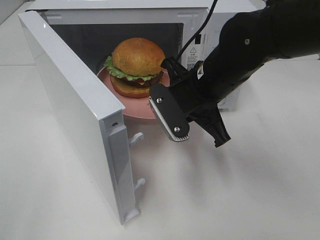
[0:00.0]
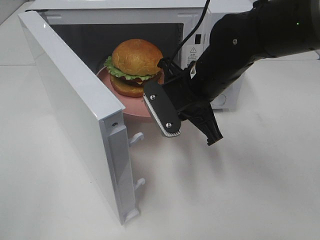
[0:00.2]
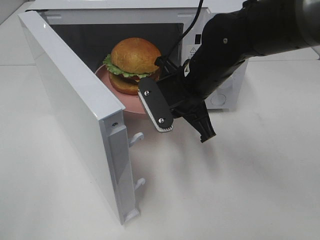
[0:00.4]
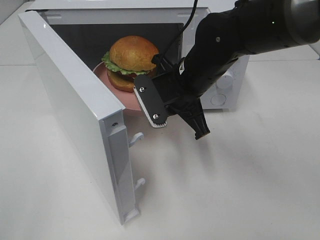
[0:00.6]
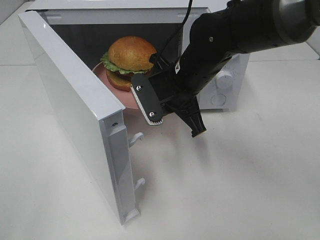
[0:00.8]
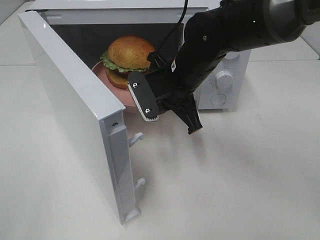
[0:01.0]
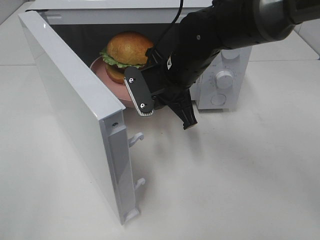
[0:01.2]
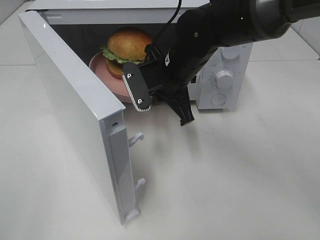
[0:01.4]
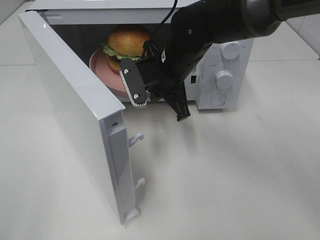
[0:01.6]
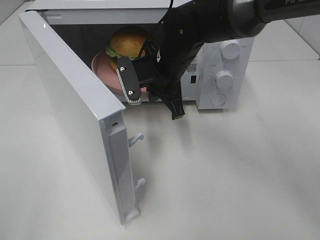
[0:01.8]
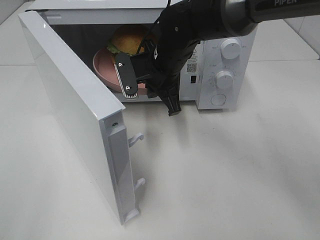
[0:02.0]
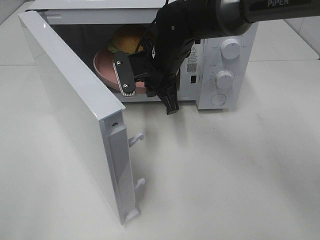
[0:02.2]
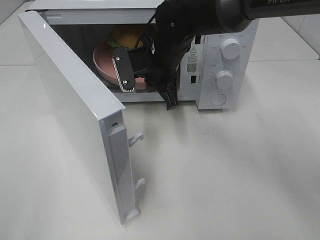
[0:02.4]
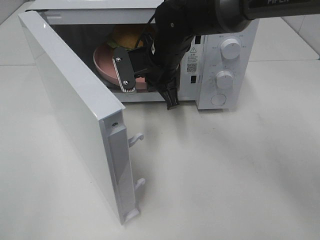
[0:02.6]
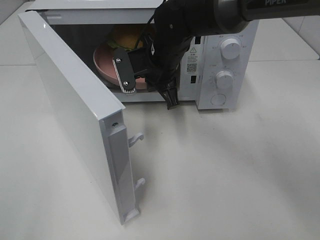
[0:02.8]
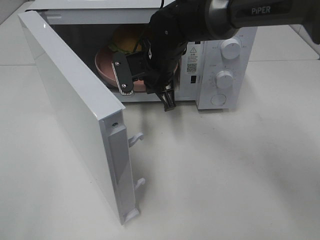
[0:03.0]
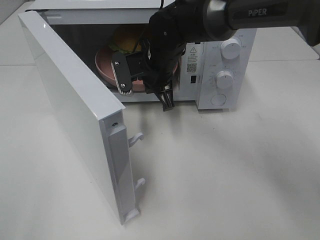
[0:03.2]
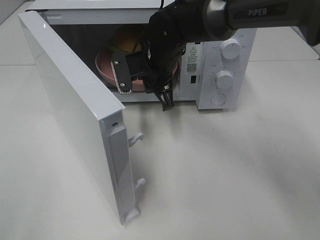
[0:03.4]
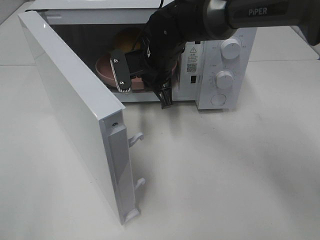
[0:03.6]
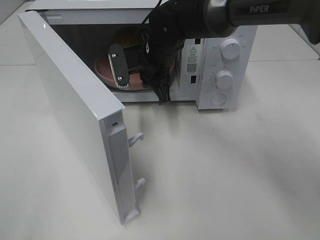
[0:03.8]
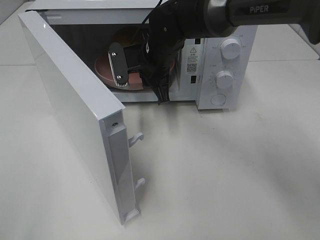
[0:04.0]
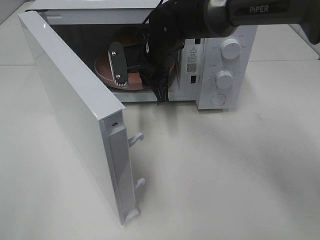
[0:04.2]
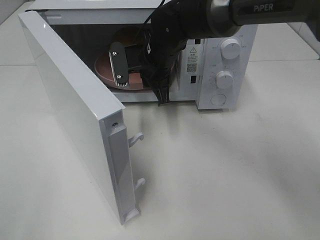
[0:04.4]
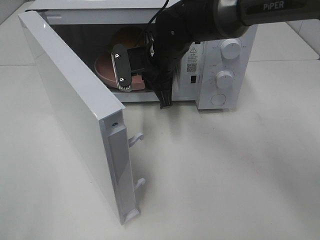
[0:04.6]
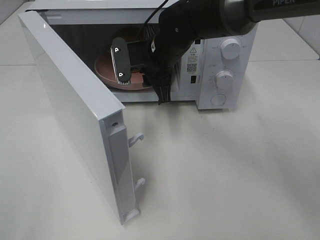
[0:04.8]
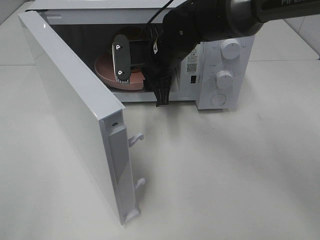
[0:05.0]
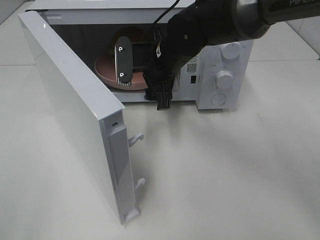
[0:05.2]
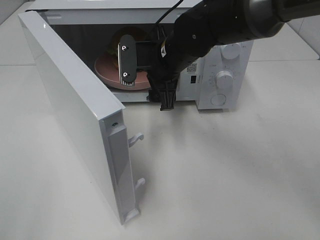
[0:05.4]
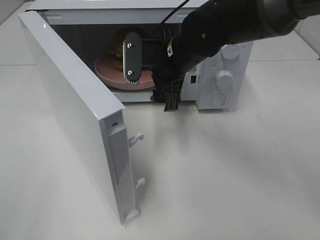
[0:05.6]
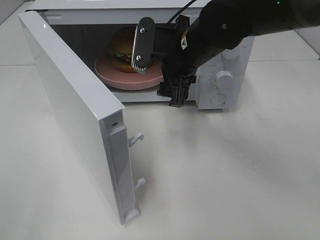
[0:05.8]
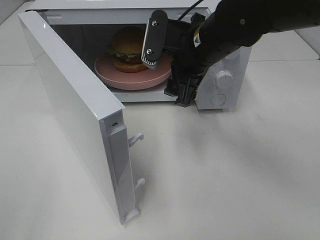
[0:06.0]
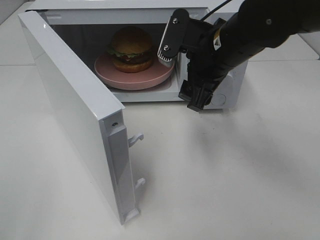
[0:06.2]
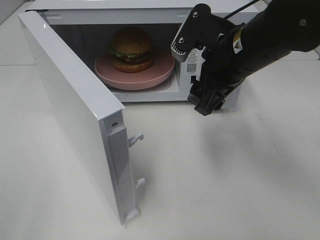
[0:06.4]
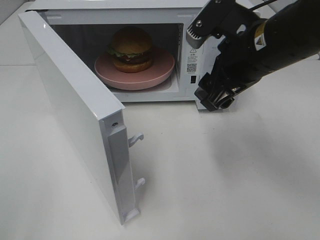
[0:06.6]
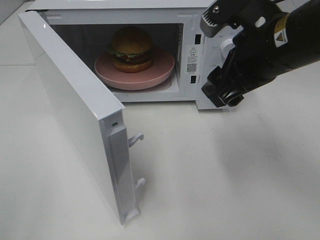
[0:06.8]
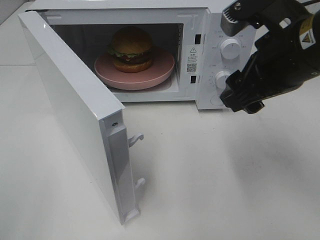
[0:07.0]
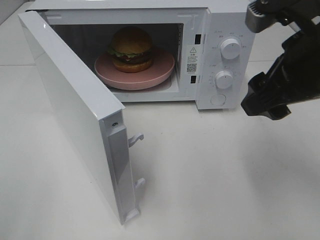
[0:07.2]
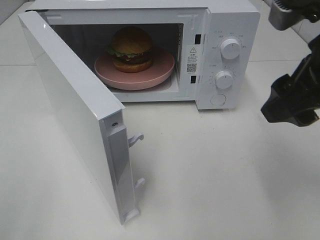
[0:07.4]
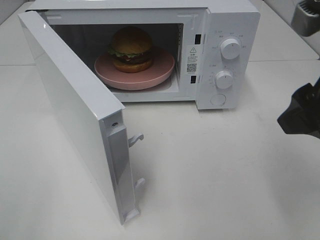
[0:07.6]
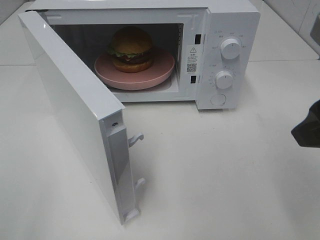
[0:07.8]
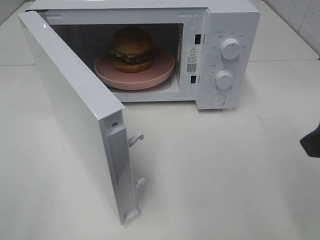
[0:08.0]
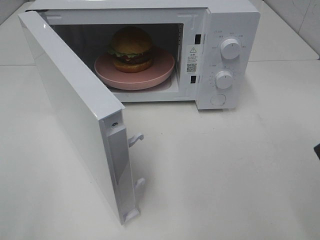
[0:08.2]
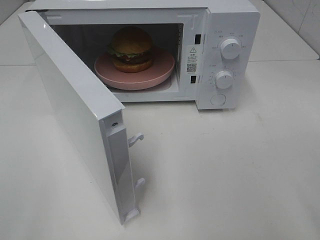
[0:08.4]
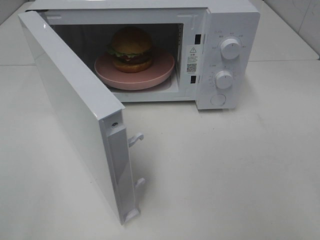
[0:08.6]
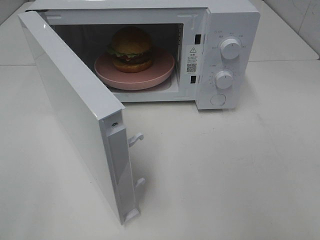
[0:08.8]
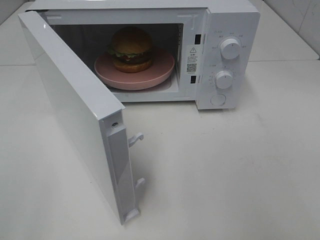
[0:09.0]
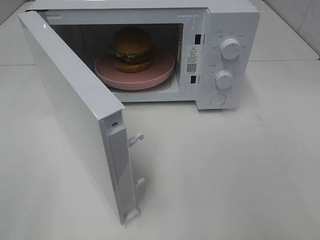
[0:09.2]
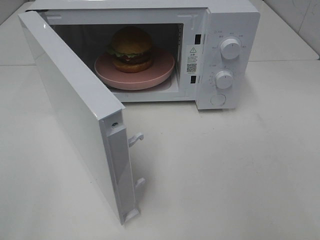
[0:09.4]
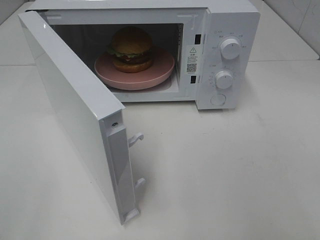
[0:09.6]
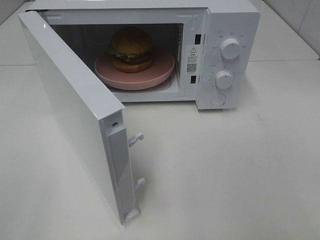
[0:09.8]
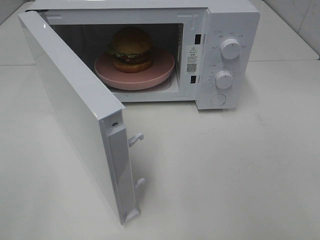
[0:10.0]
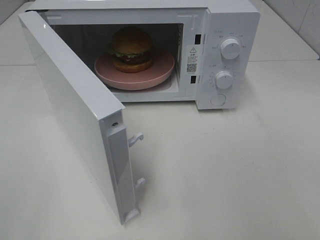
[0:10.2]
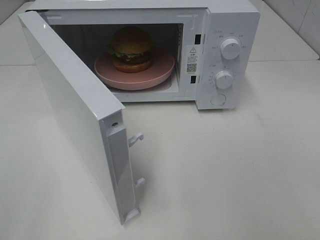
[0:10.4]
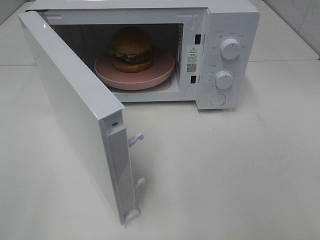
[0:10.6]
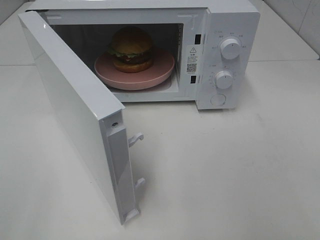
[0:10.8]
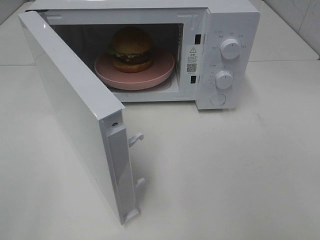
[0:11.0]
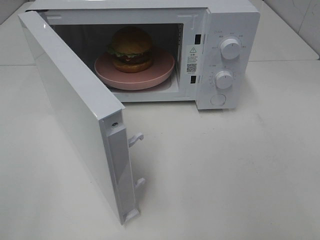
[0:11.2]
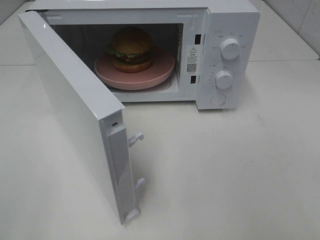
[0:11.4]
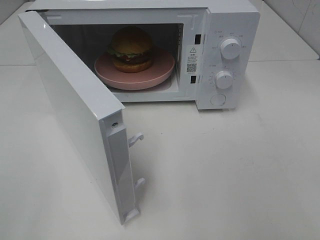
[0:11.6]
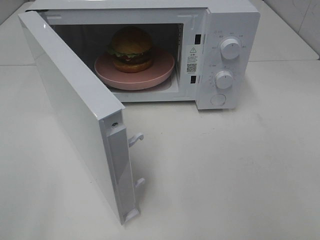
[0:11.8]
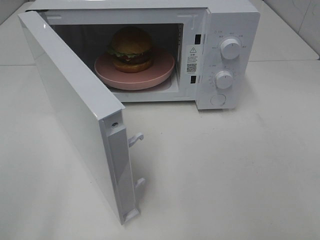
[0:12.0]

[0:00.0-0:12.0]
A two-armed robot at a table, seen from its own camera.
Task of the whole recording: Heat the burger.
Step, 0:00.0 to 0:03.8: Right hand: place the plate in the microwave.
0:00.0 to 0:01.6: The right gripper heads forward, covering approximately 5 cm.
0:01.6 to 0:04.4: The grippers make only small movements.
0:04.4 to 0:06.0: The right gripper moves backward, to the right and upward, about 10 cm, and opens up.
0:06.0 to 0:07.6: The right gripper travels backward, to the right and upward by some 20 cm.
0:07.6 to 0:09.0: The right gripper moves backward and to the right, about 15 cm.

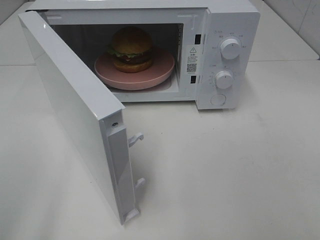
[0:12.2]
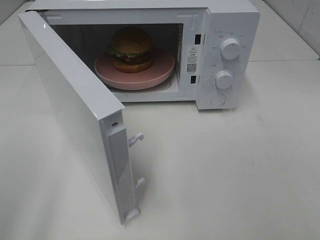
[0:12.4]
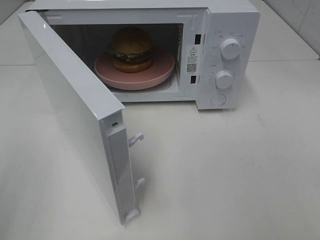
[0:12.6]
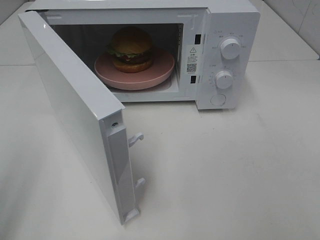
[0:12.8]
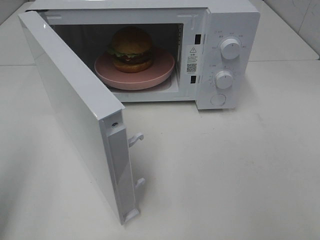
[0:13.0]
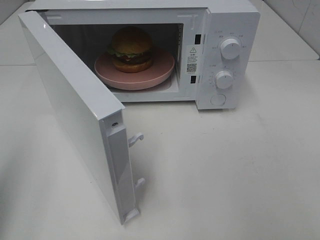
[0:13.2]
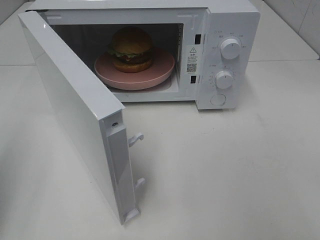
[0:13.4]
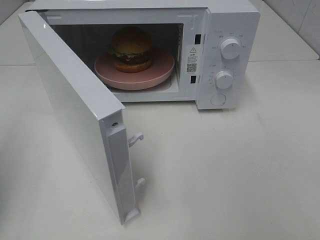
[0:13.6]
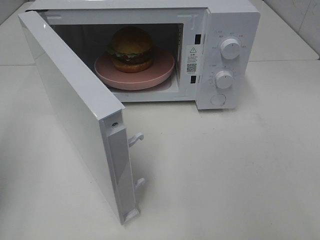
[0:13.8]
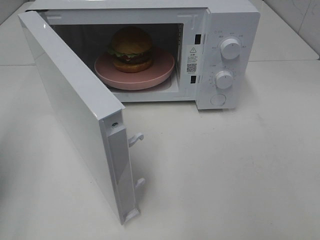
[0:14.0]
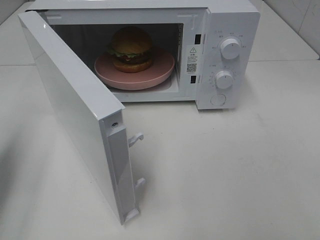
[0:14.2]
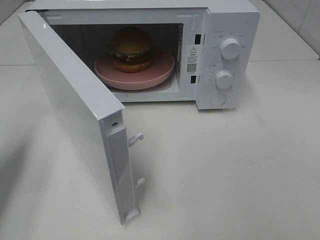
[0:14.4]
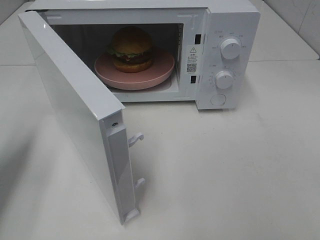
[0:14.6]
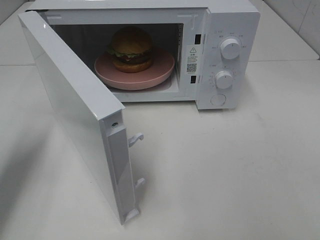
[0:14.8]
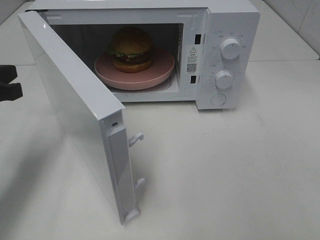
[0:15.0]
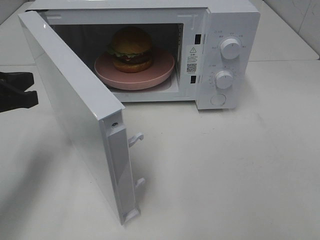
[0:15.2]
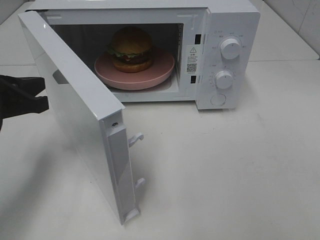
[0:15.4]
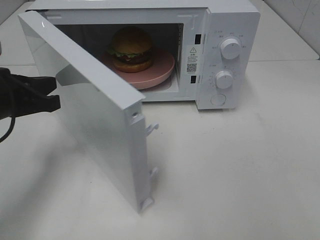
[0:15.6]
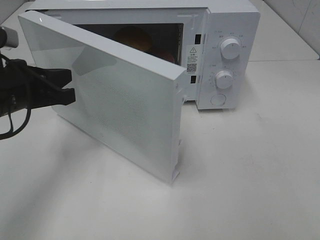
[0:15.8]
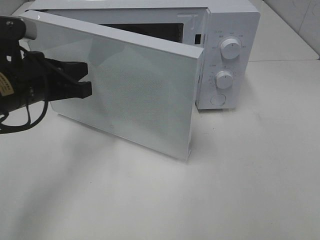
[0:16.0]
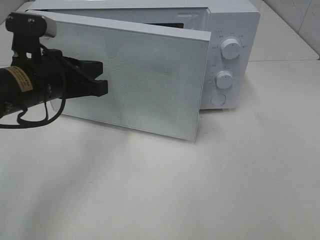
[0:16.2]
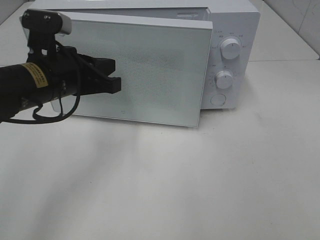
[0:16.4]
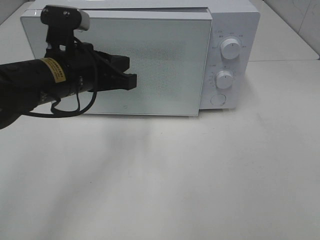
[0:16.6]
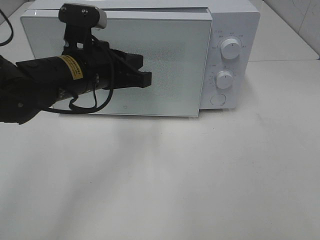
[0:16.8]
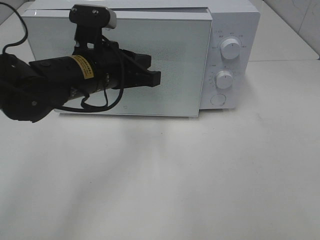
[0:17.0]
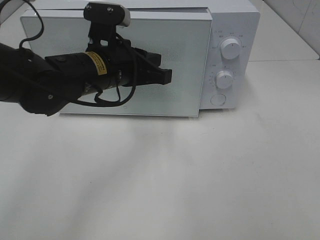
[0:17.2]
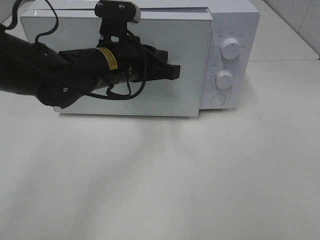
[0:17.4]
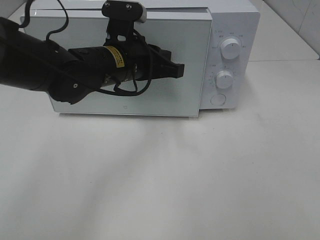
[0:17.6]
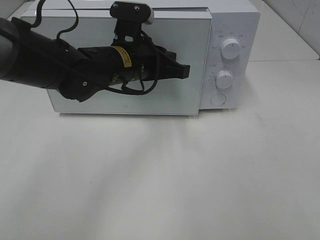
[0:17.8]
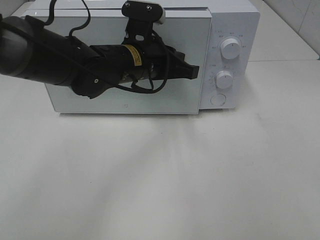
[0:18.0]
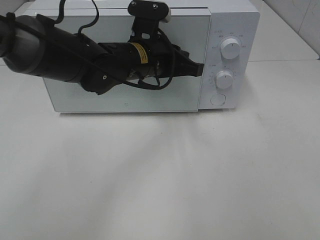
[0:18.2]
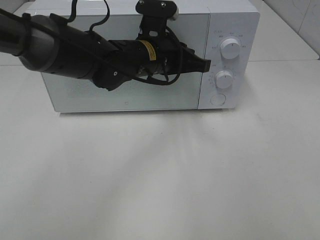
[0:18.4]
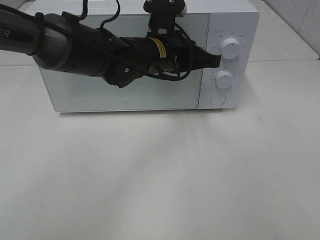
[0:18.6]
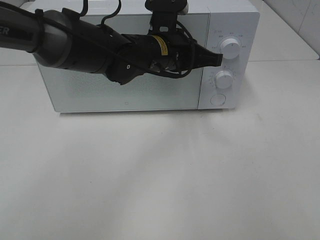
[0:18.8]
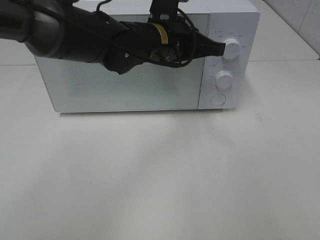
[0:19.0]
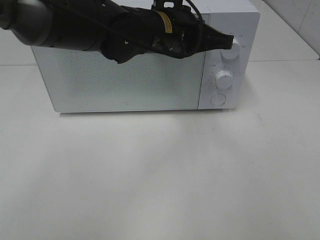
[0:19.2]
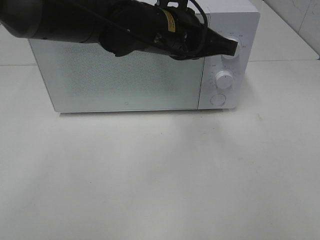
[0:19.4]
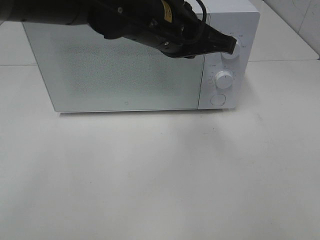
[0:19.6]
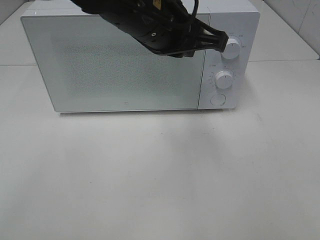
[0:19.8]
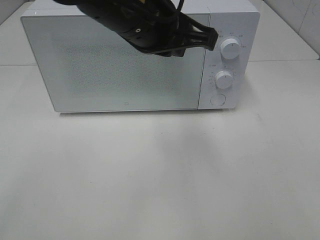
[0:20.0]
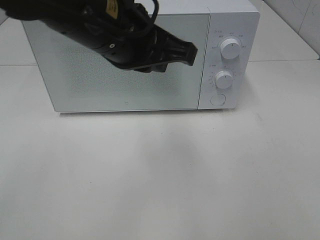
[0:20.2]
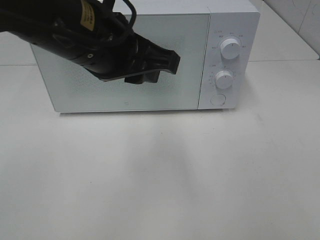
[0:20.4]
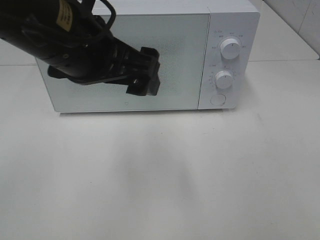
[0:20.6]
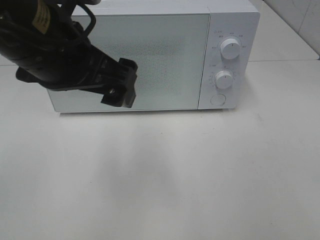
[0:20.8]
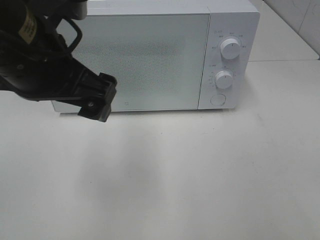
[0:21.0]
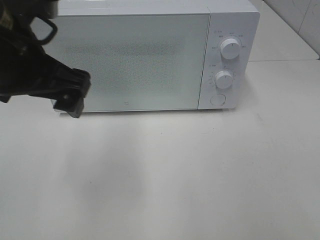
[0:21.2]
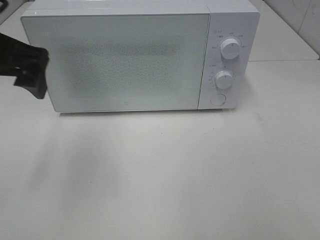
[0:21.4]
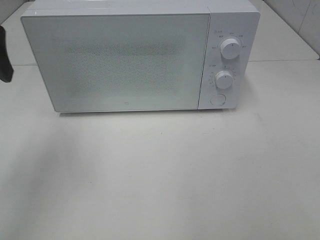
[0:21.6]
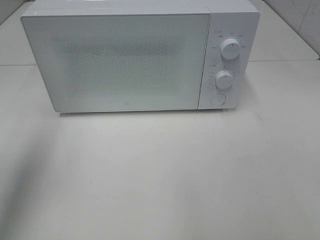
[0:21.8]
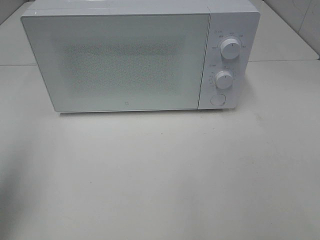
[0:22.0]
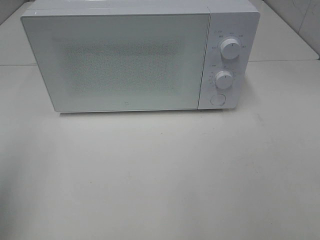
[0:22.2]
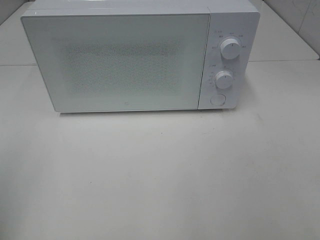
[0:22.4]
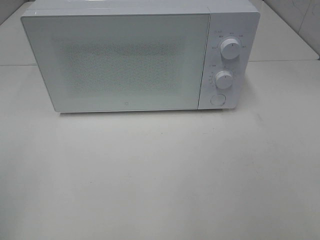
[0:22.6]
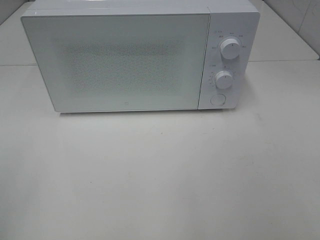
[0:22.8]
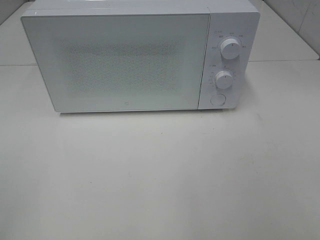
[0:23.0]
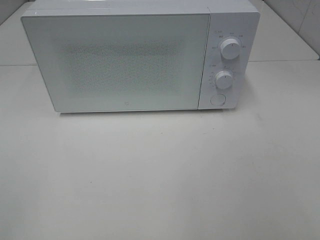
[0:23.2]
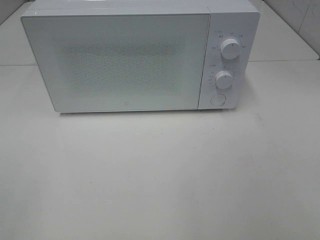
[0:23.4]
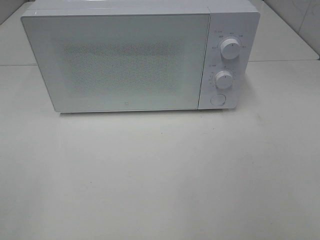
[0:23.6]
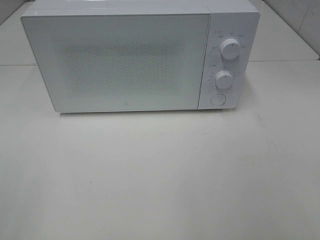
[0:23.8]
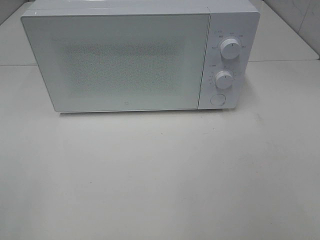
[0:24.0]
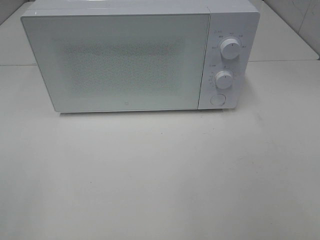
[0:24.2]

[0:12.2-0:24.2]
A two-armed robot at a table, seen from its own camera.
Task of the whole recording: Heat the burger.
Step, 0:12.2 to 0:19.0: Left hand: close the microwave door.
0:13.8 to 0:15.2: The left gripper is displaced to the right, forward and downward by about 15 cm.
0:15.2 to 0:16.6: The left gripper is displaced to the right by some 15 cm.
0:16.6 to 0:18.2: The left gripper shifts approximately 10 cm to the right and forward.
0:18.2 to 0:19.8: The left gripper shifts approximately 10 cm upward and backward.
0:19.8 to 0:21.2: The left gripper goes about 15 cm to the left and backward, and opens its fingers.
0:21.2 to 0:22.6: The left gripper heads to the left and backward, covering roughly 25 cm.
